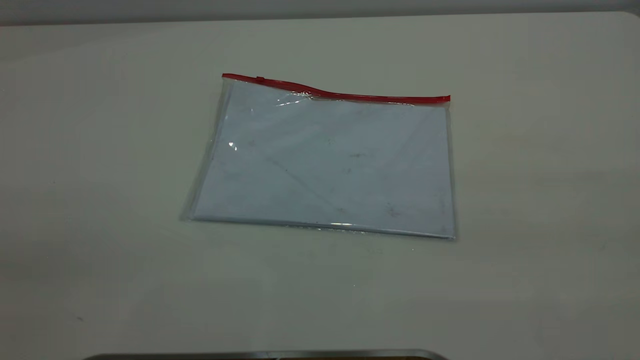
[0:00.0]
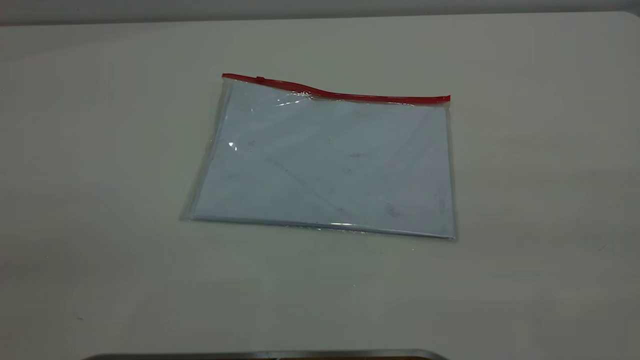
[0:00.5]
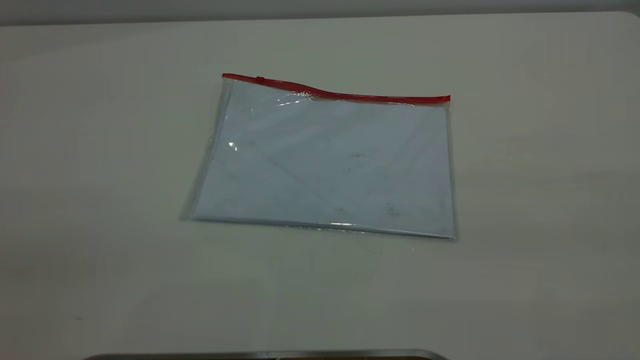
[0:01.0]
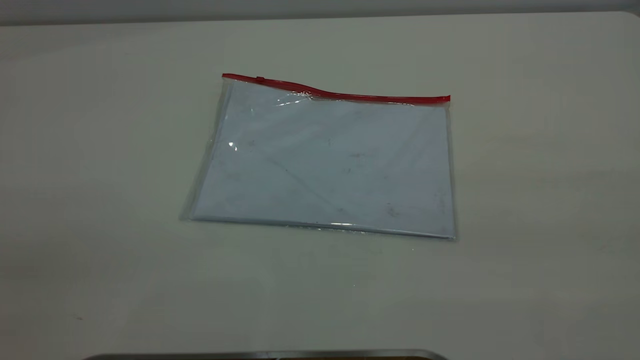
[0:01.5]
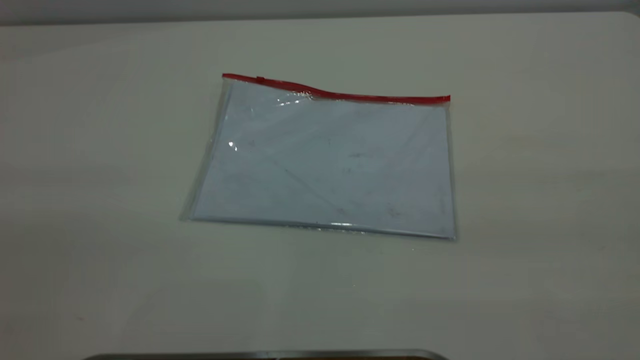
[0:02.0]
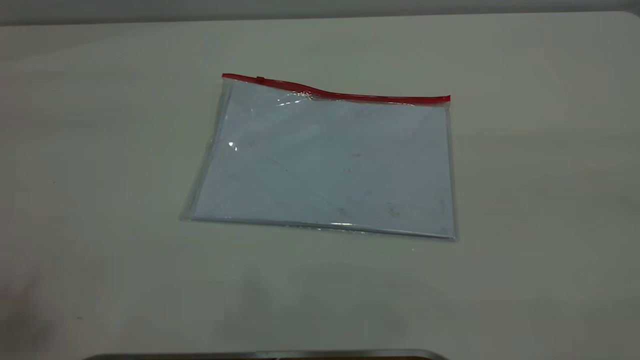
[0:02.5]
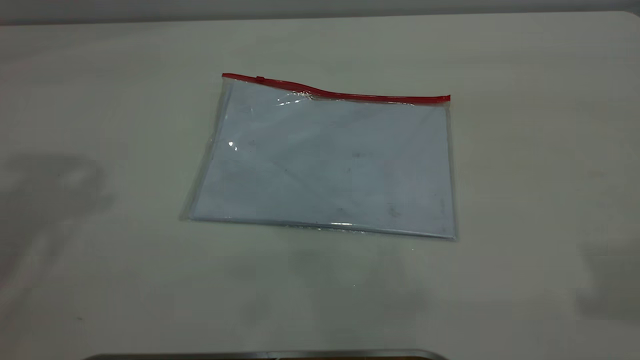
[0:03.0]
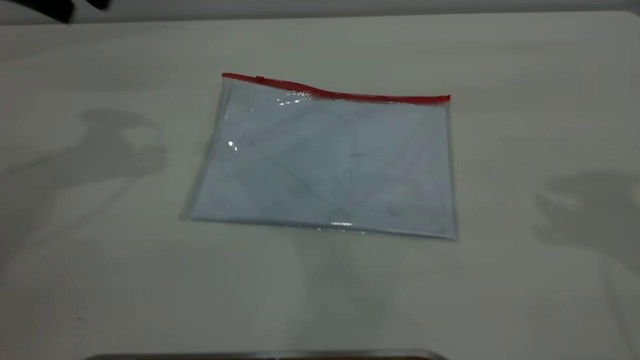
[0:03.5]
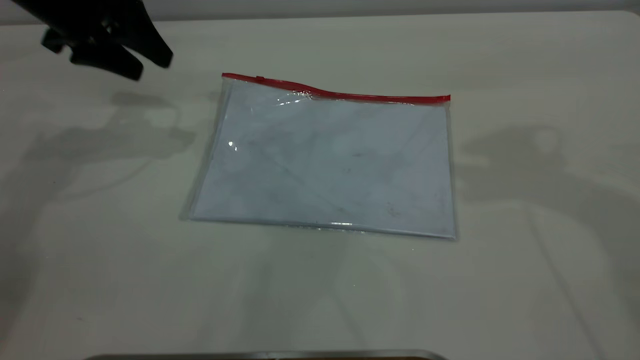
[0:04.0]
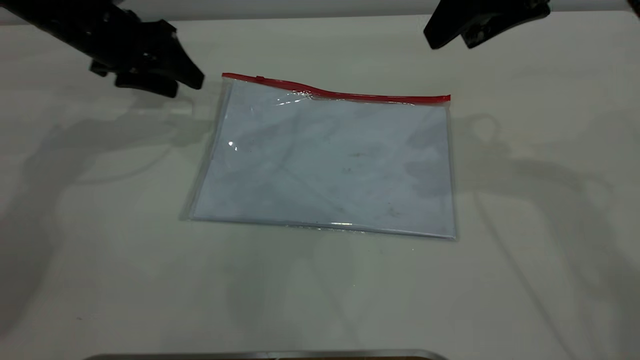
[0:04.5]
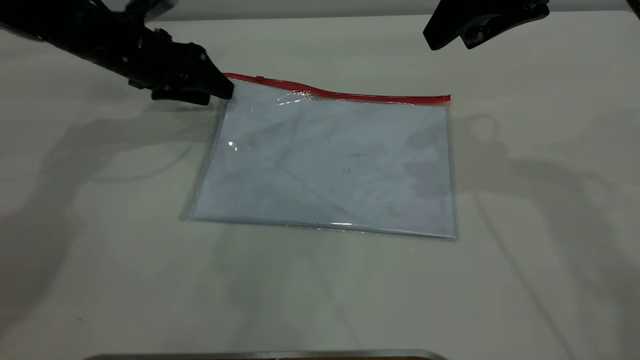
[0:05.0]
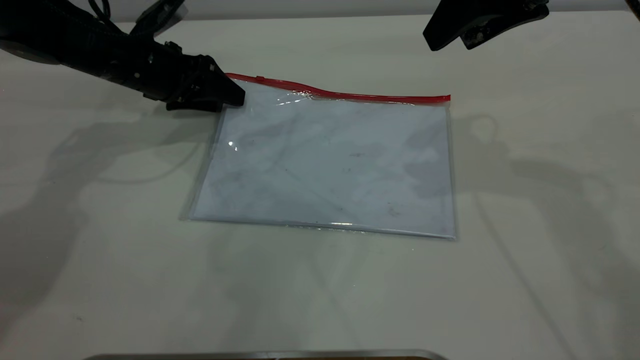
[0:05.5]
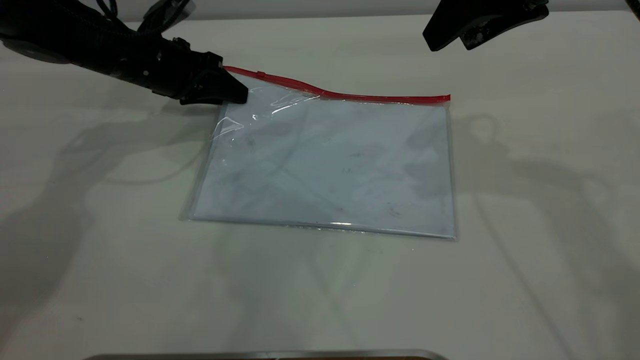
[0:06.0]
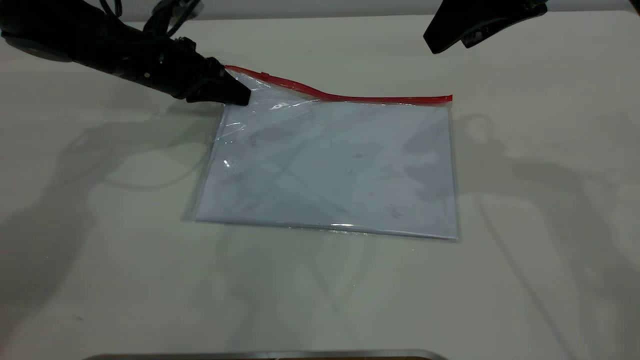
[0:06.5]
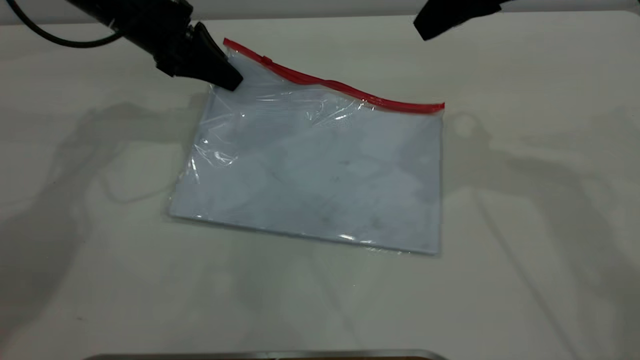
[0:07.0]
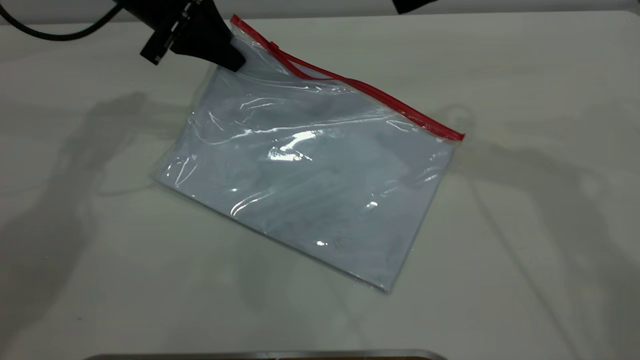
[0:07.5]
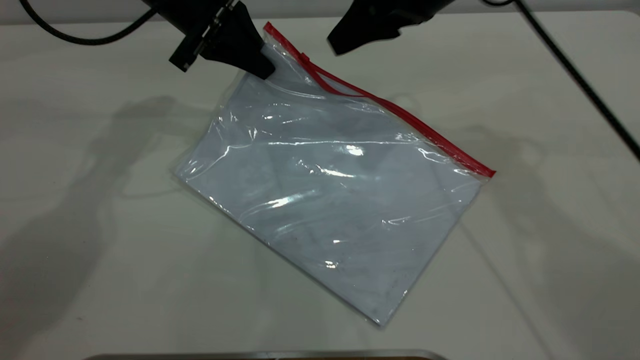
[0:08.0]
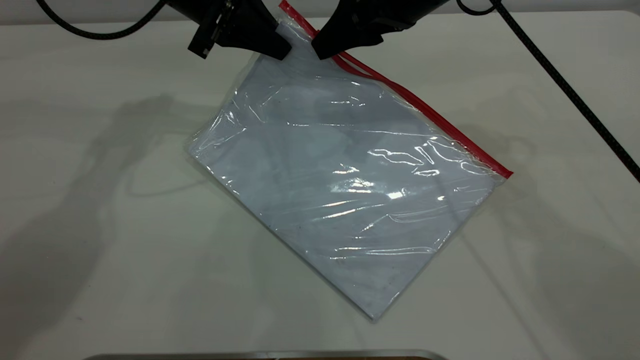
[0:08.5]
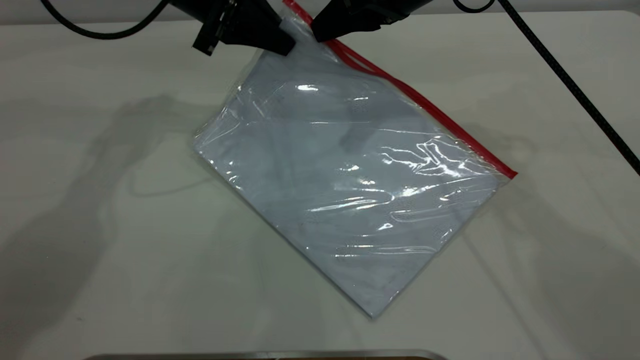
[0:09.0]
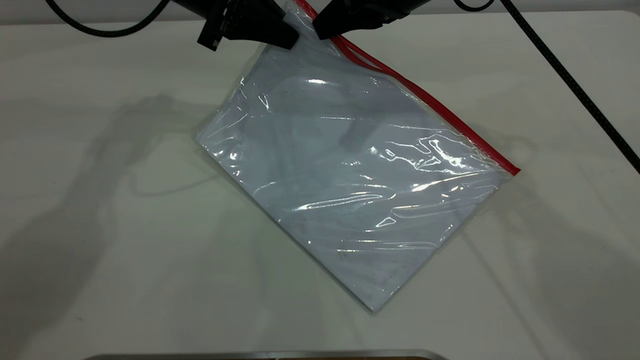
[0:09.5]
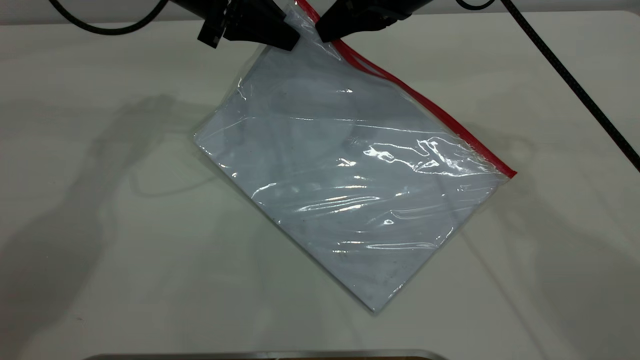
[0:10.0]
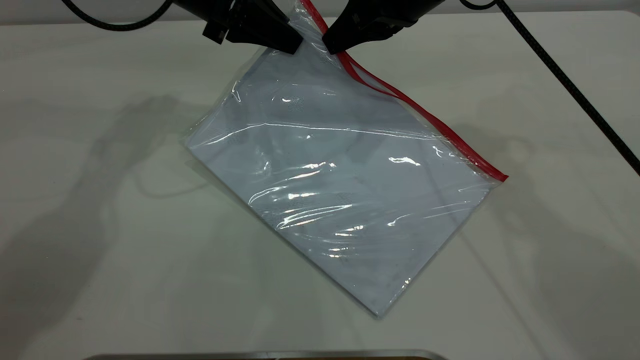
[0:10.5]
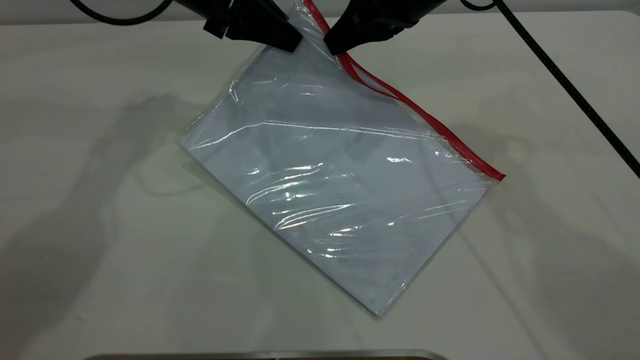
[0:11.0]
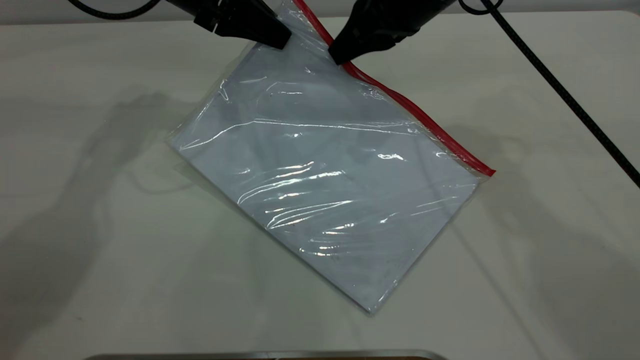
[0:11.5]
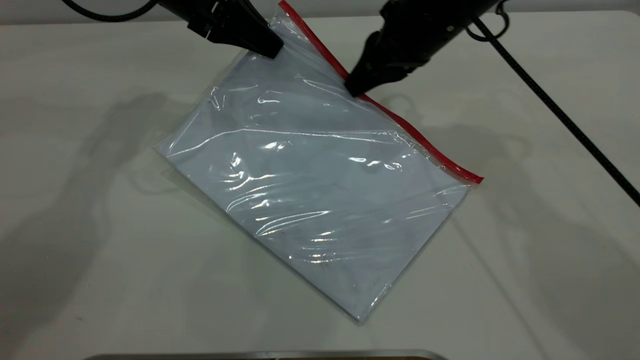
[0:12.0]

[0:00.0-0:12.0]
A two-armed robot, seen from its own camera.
Step, 0:00.0 to 0:07.0: Pick up the transparent plastic bag with the left gripper.
0:02.0 to 0:04.0: The left gripper travels forward and downward by approximately 50 cm.
0:04.0 to 0:06.0: The right gripper changes place by some 5 cm; the left gripper travels downward by some 10 cm, and closes.
0:06.0 to 0:08.0: The left gripper travels upward and to the right by roughly 10 cm, and closes its fingers. The right gripper goes some 10 cm to the left, forward and downward.
0:08.0 to 0:10.0: The right gripper closes.
0:10.0 to 0:12.0: There are only small adjustments of the grippers.

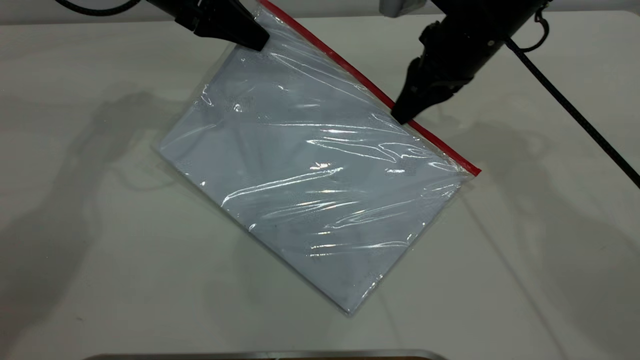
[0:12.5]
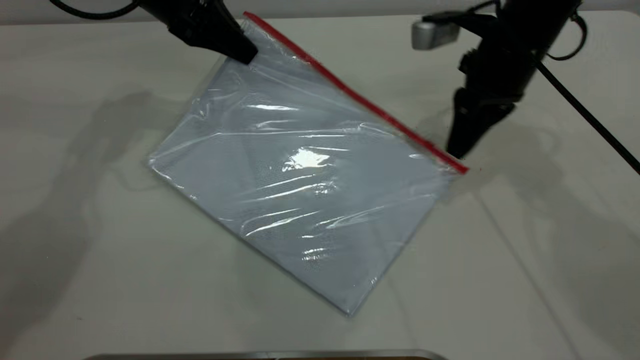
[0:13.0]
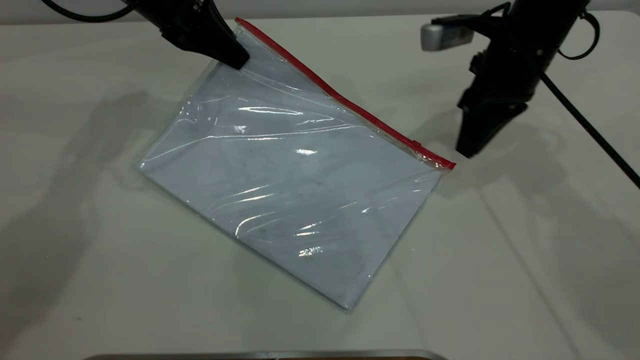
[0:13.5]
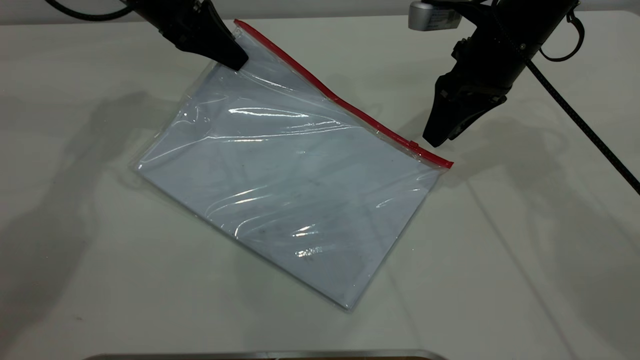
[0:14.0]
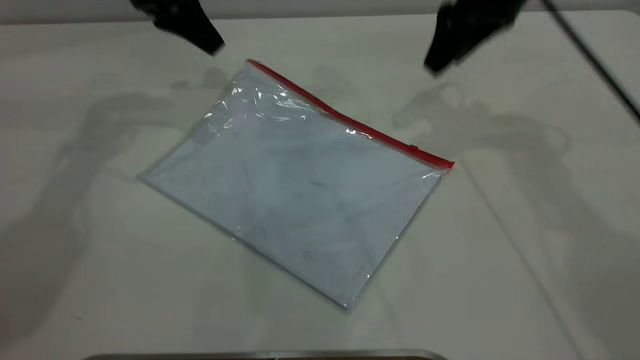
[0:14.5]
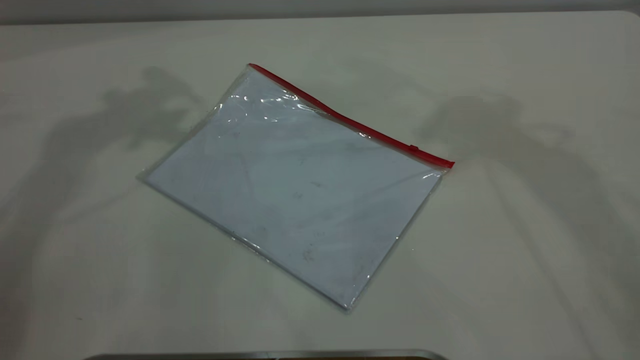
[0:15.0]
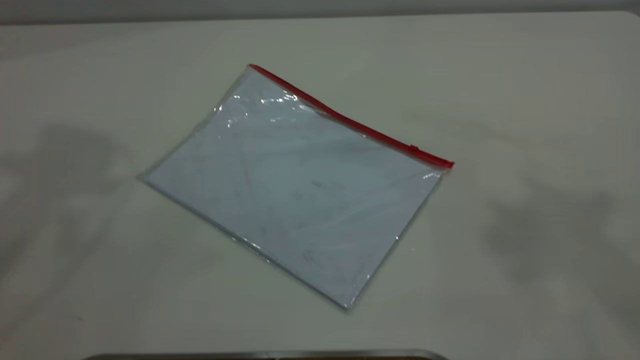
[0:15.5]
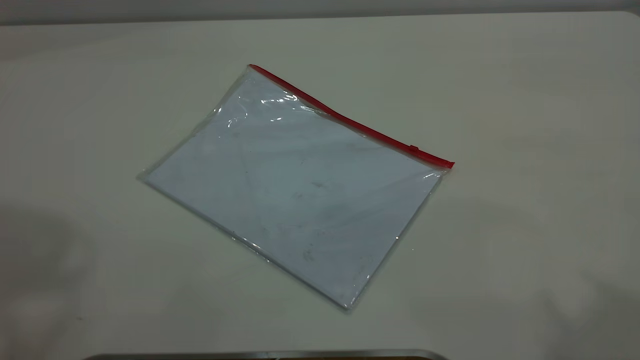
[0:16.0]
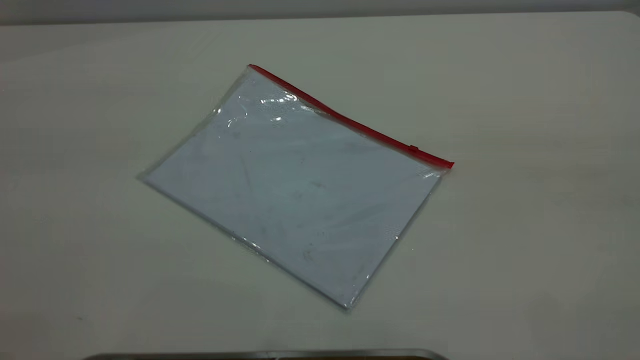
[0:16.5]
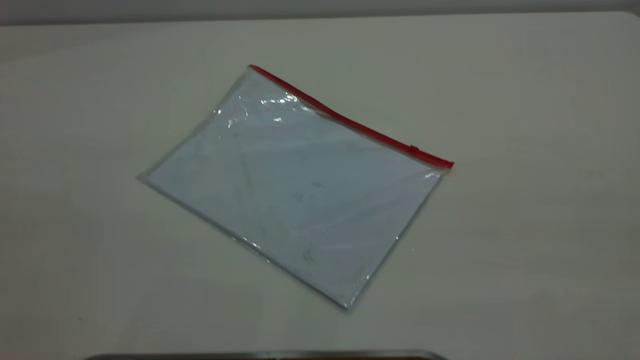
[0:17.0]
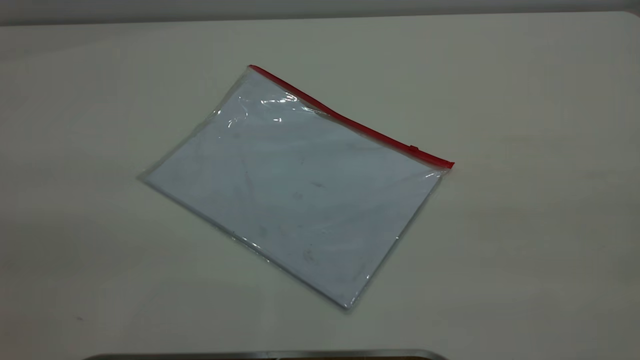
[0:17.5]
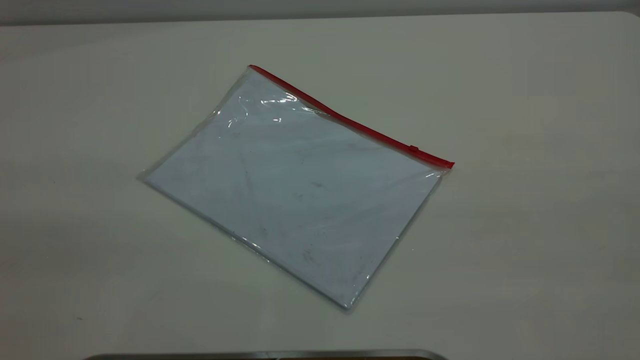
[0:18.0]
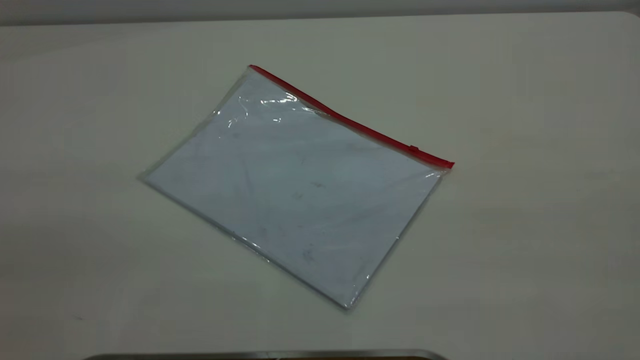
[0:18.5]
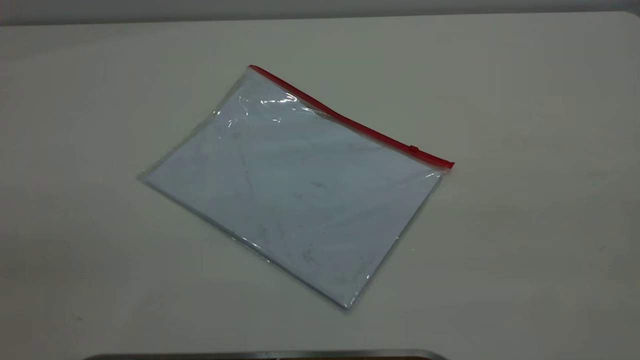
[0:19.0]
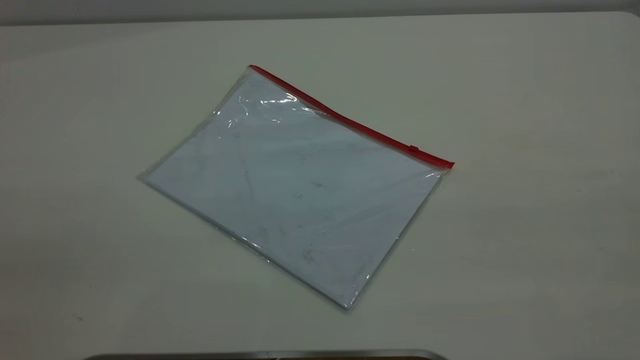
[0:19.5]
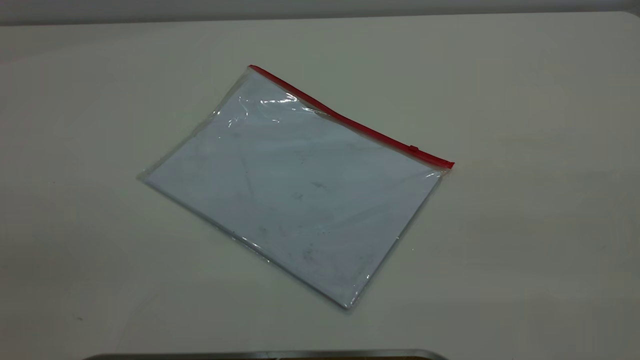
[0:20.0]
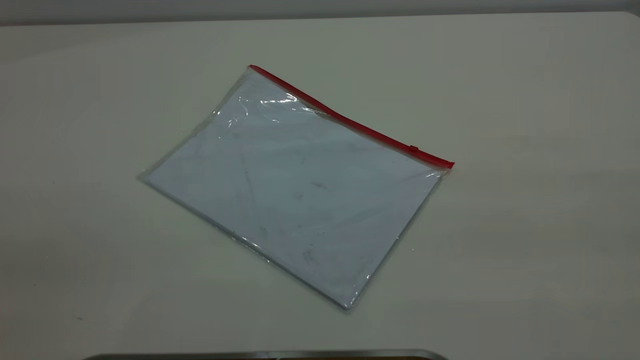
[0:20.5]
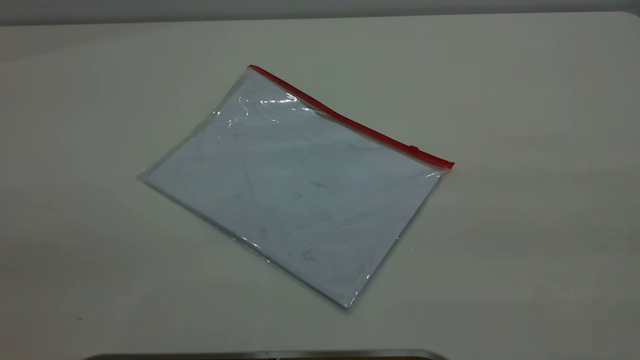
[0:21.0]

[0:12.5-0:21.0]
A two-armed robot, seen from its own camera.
0:12.5 to 0:14.5: The right gripper travels upward by some 10 cm, and opens. The left gripper opens.
0:14.5 to 0:16.5: Both grippers travel together backward and upward, some 50 cm.
